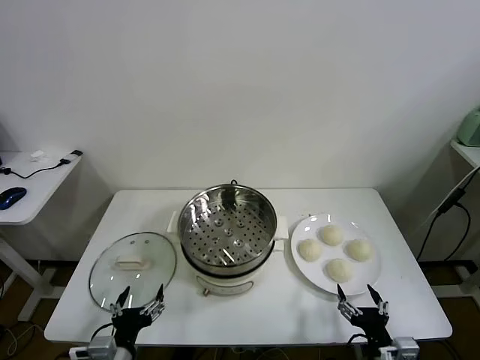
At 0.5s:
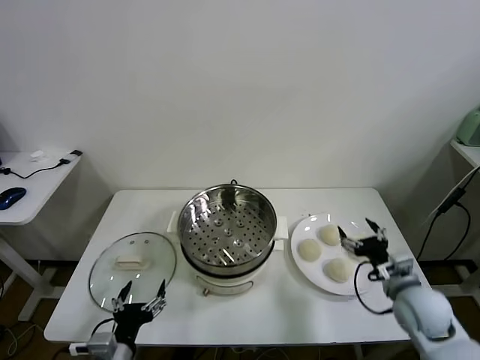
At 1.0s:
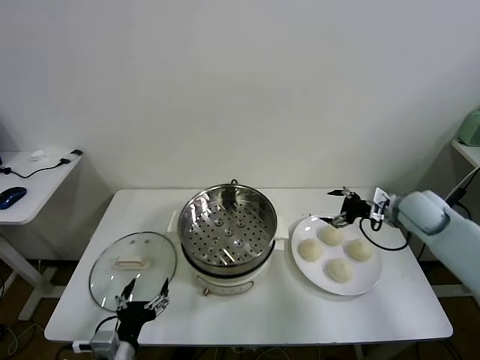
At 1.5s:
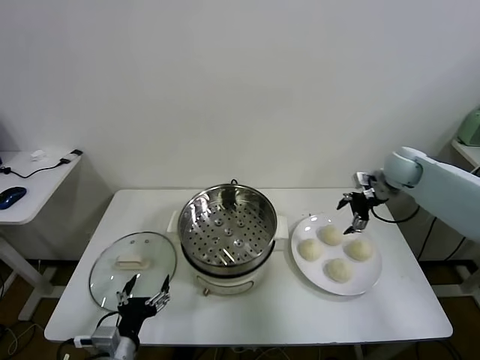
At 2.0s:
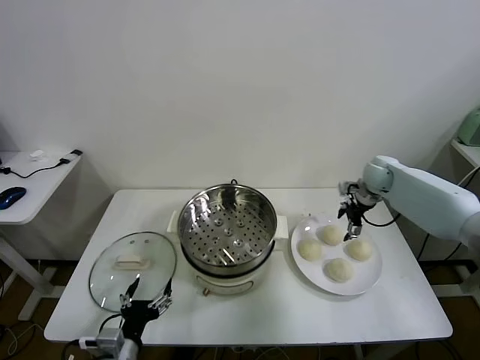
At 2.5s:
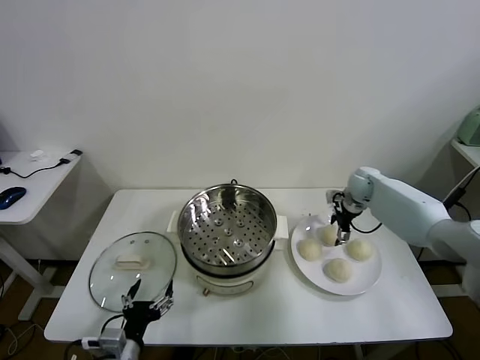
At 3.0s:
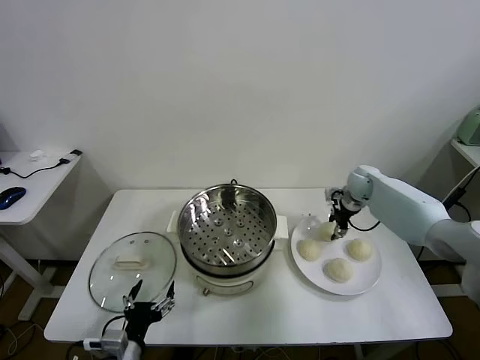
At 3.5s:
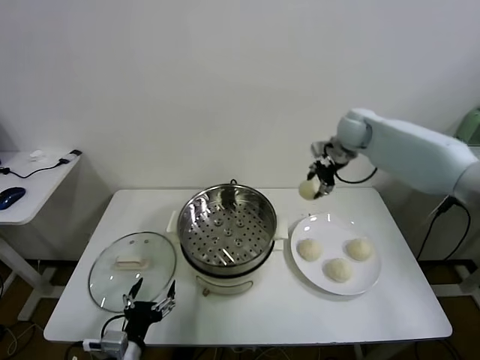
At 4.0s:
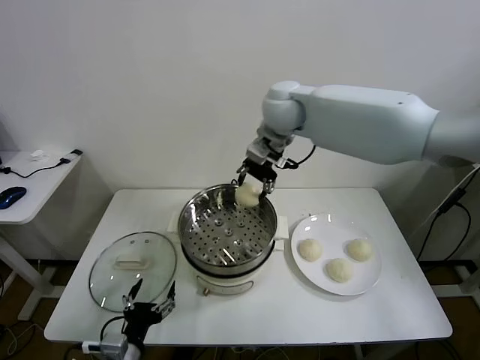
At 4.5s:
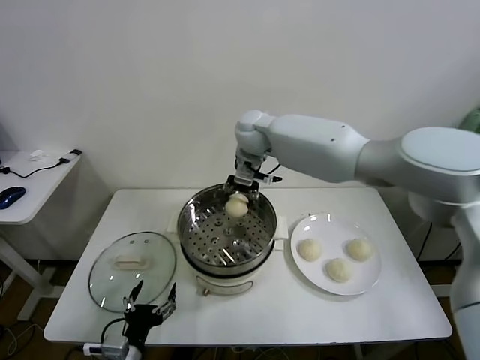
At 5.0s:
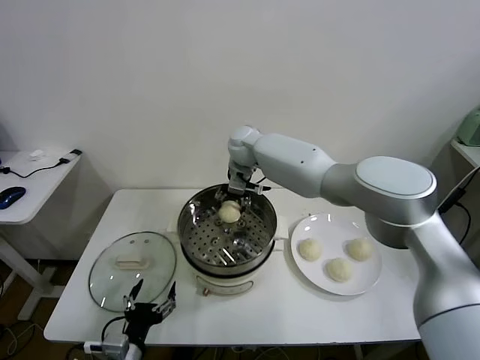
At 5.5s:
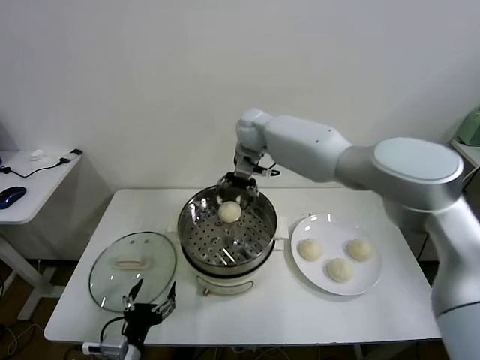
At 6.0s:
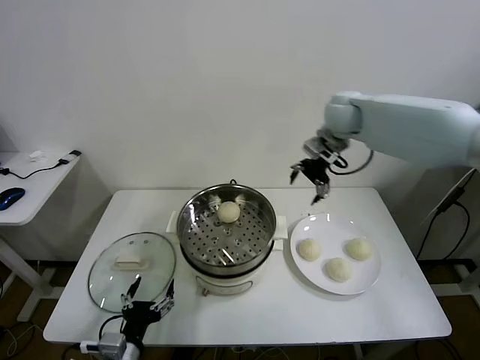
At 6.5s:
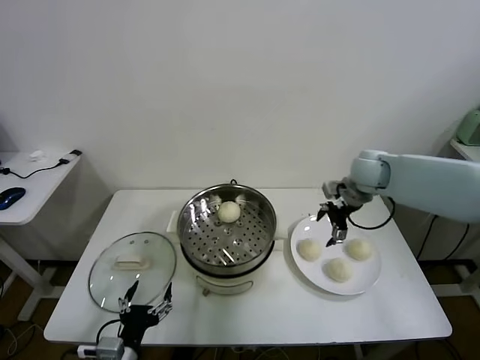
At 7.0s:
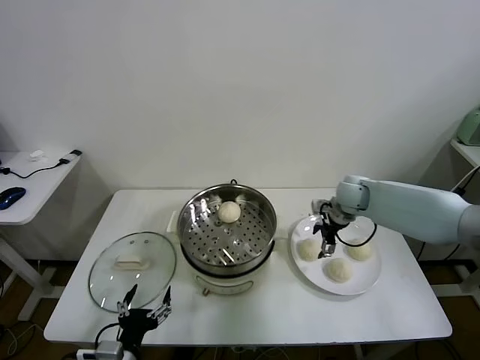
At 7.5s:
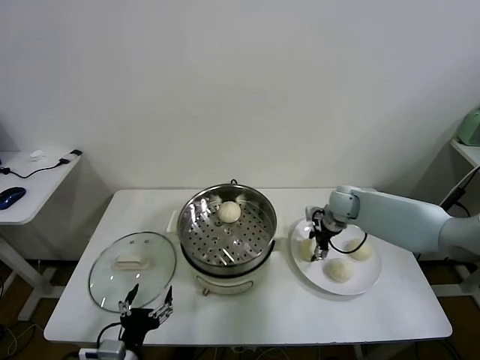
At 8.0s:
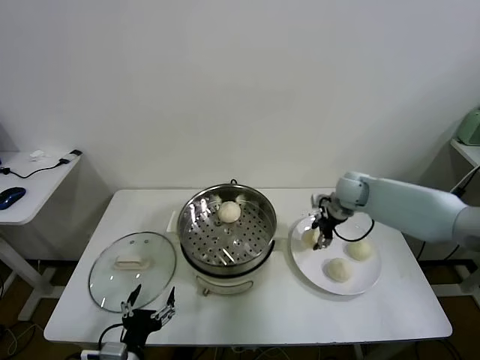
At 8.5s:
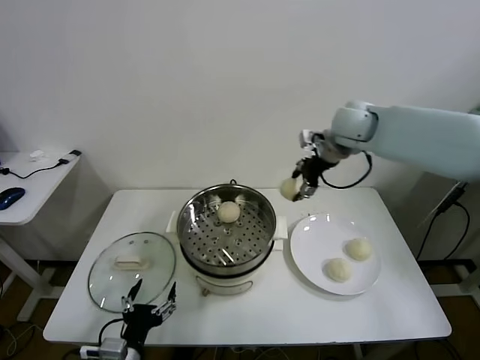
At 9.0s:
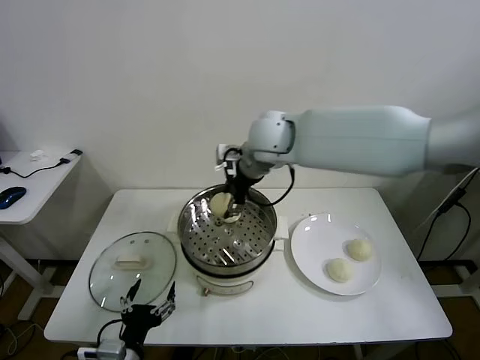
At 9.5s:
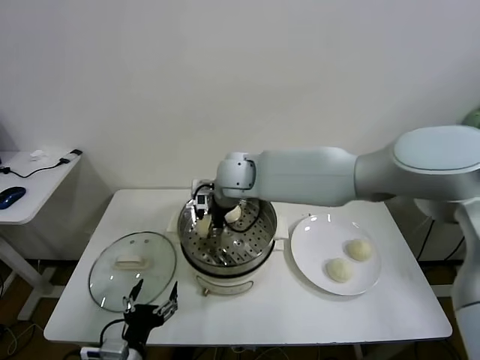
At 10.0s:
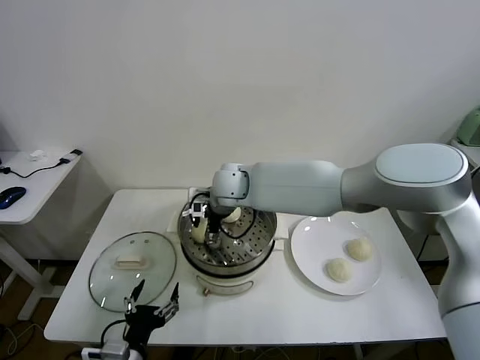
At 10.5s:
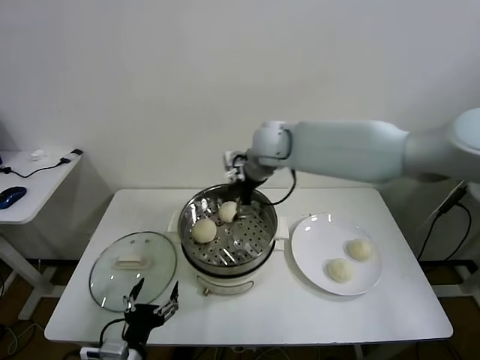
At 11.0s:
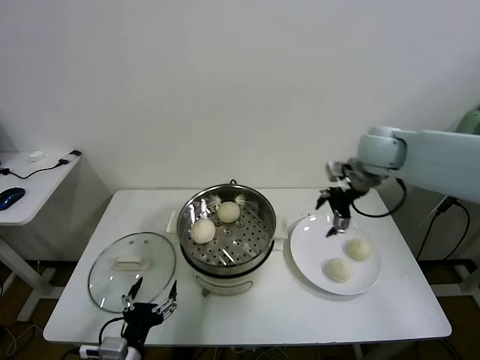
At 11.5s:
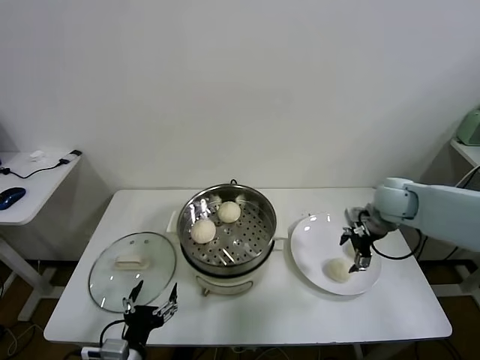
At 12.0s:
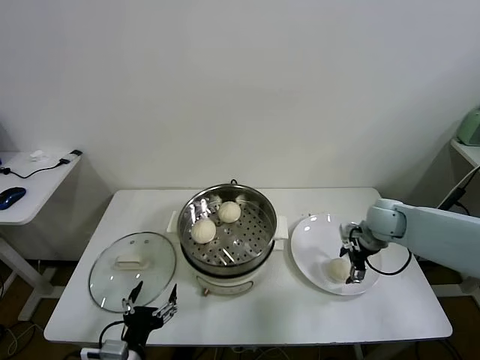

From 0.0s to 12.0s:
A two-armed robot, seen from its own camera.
Task of the whole recording: take steamed baozi put them in steamer.
Step, from 0.0s to 2.5s: Grasp the baozi in the plate with right gripper.
Step, from 3.0s to 5.0s: Place the baozi on the steamer with right gripper.
Step, from 5.5s to 7.5s: Grasp the baozi in the plate with right gripper.
Step, from 8.0s to 10.0s: Place the baozi on the steamer with right gripper.
From 2.0s to 4.0s: The right gripper moves to the left and upward, about 35 cm, and closes its fingers.
From 4.0s to 6.0s: The right gripper heads to the right, covering about 20 cm, and opens.
From 6.0s to 8.0s: The right gripper moves downward, roughly 15 cm, and closes its fingers.
From 8.0s to 10.0s: The right gripper is displaced to the left by approximately 30 cm, and opens up.
From 10.0s to 12.0s: The right gripper is displaced to the right by about 35 cm.

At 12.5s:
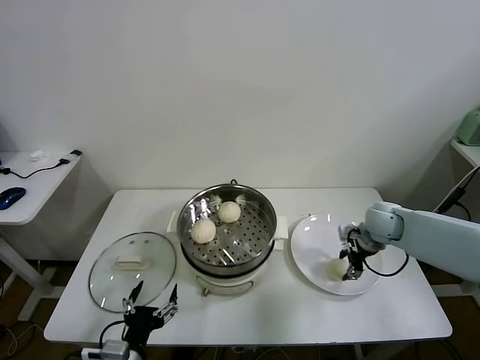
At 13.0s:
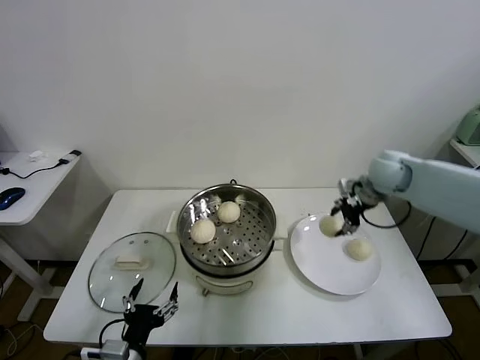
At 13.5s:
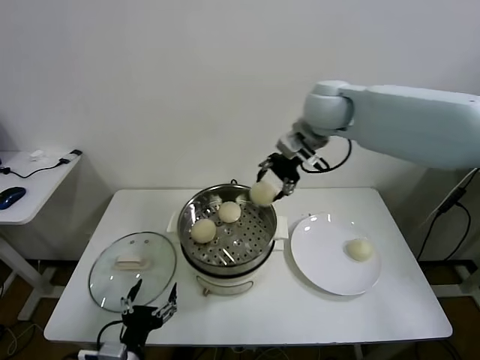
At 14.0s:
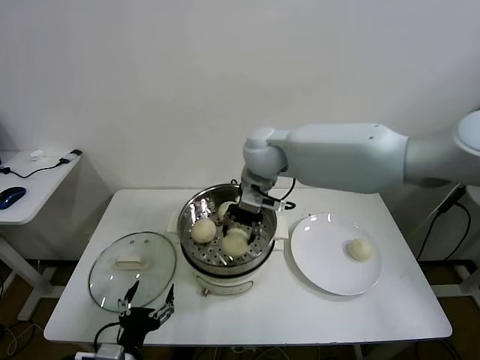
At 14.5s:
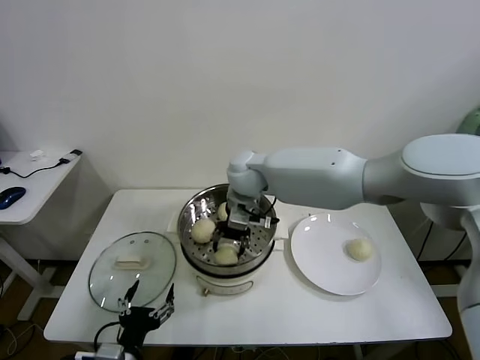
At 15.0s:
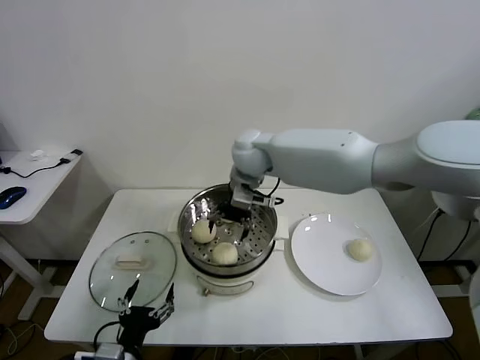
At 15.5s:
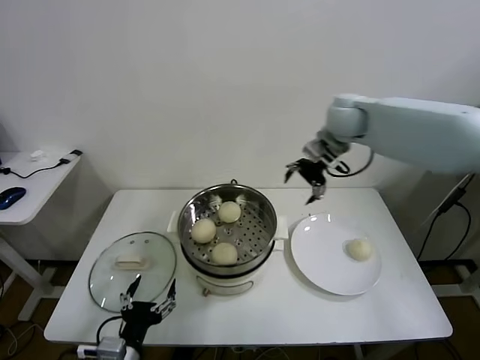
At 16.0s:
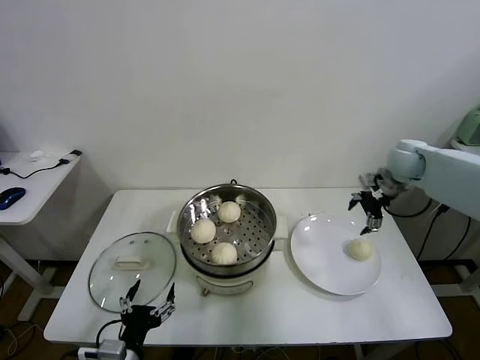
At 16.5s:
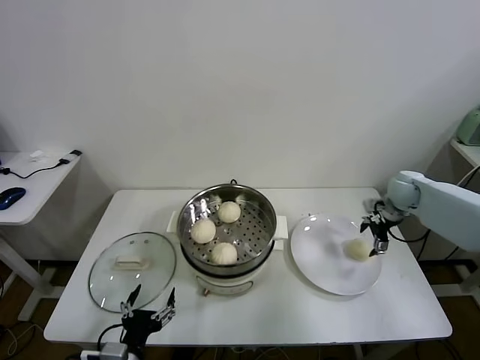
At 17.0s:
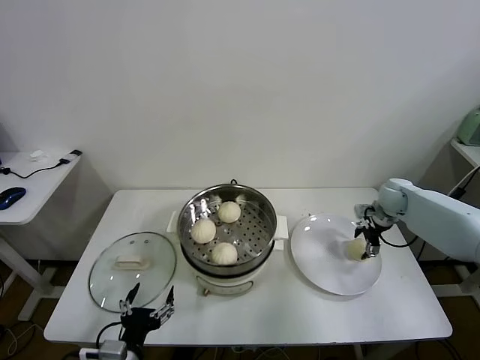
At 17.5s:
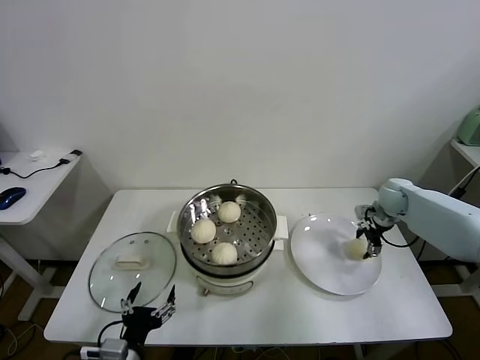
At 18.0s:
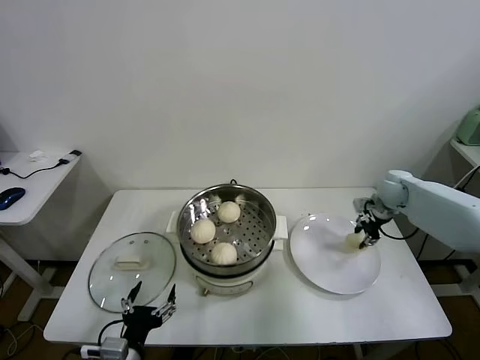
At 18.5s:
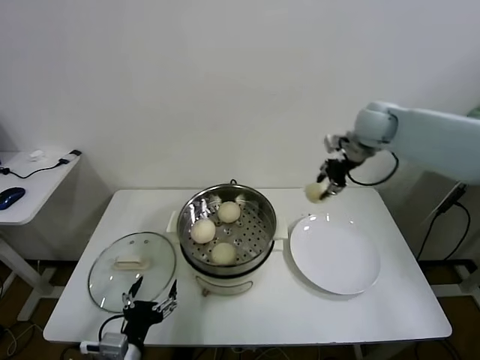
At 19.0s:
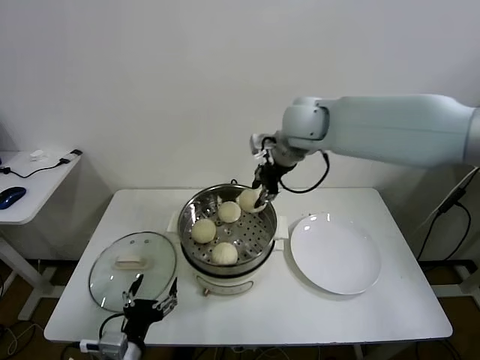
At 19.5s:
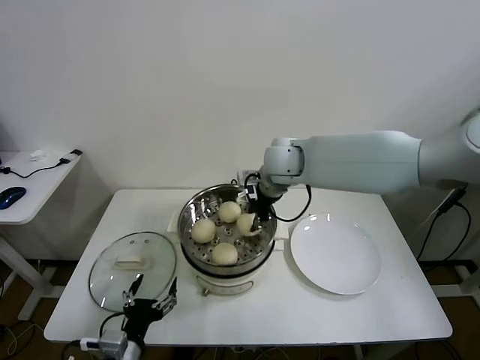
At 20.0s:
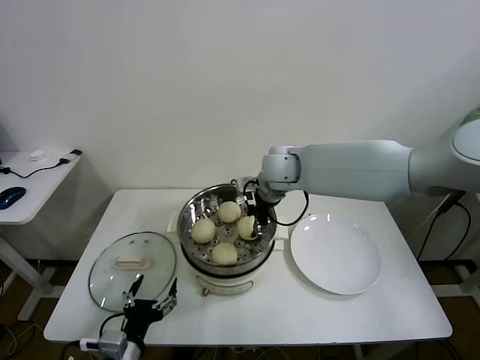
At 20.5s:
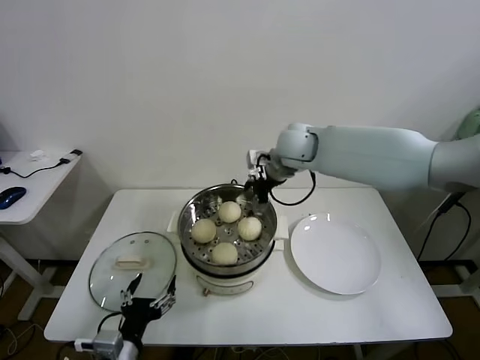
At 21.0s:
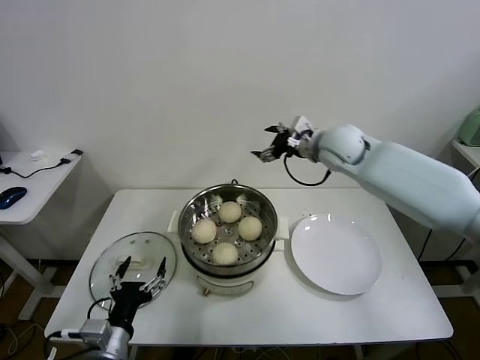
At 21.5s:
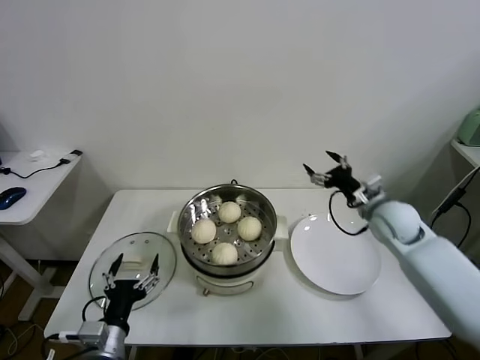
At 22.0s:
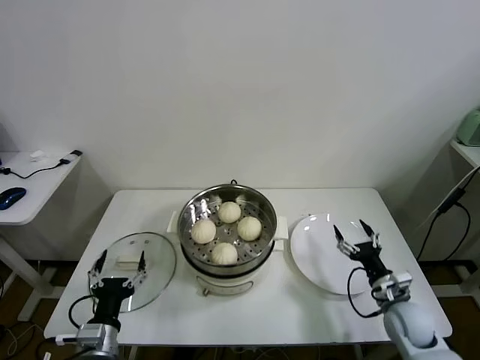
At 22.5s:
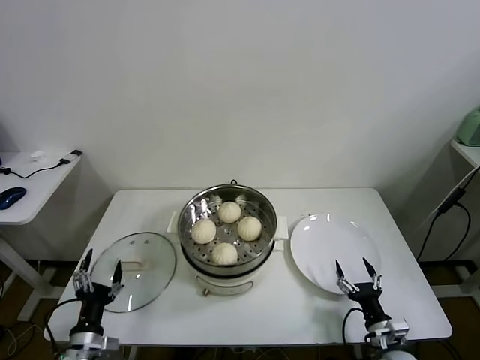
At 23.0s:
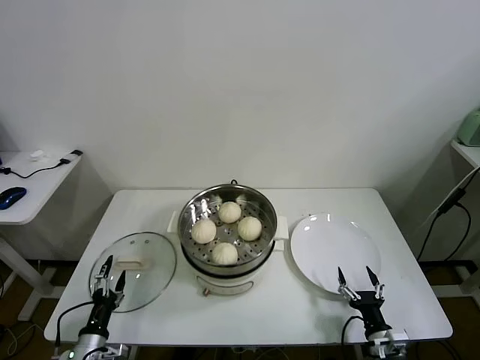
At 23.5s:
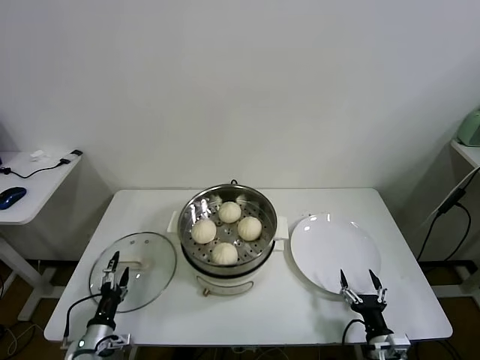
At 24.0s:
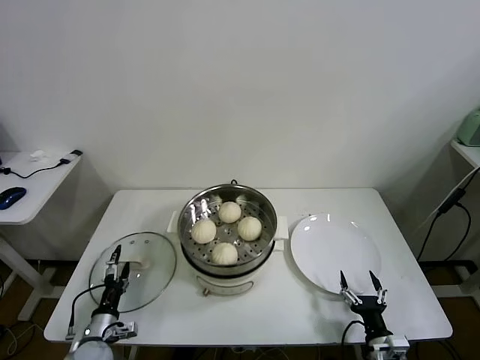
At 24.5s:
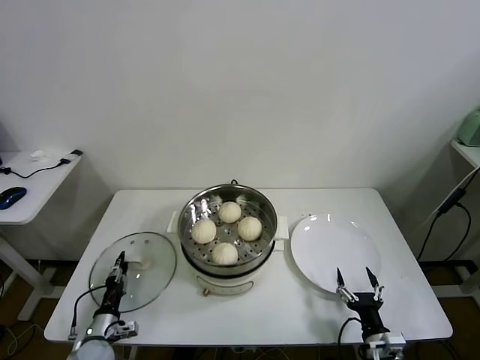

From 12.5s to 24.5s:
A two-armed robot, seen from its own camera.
Task of the whole recording: take steamed baozi put them in steamer.
Step, from 13.0s to 14.5s: Place the baozi on the steamer with right gripper.
Step, from 15.0s to 17.5s: Grasp the baozi in the plate with right gripper.
Step, from 18.0s to 20.0s: Place the baozi on the steamer with right gripper.
From 12.5s to 14.5s: The right gripper moves to the left, approximately 35 cm.
From 14.5s to 16.5s: The right gripper heads to the right, covering some 40 cm, and opens its fingers.
From 16.5s to 18.5s: The right gripper shifts roughly 25 cm upward and to the left, and closes its fingers.
From 18.5s to 20.5s: The right gripper shifts about 15 cm to the left, and opens up.
From 20.5s to 22.5s: The right gripper travels downward, backward and to the right by about 60 cm. Meanwhile the left gripper heads to the left and downward, covering about 10 cm.
From 22.5s to 24.5s: The left gripper is displaced downward and forward by roughly 10 cm, and closes up.

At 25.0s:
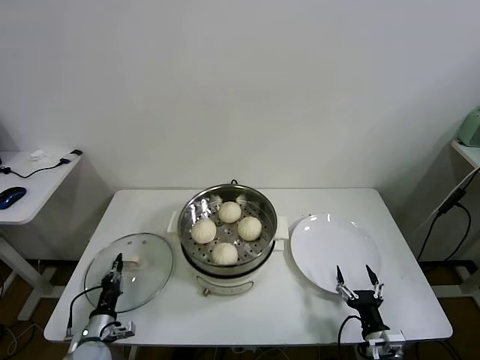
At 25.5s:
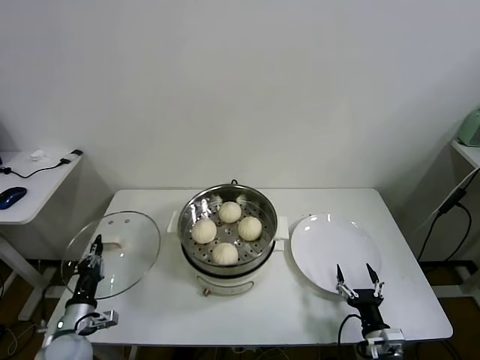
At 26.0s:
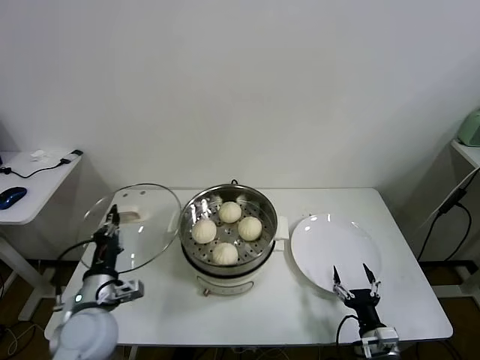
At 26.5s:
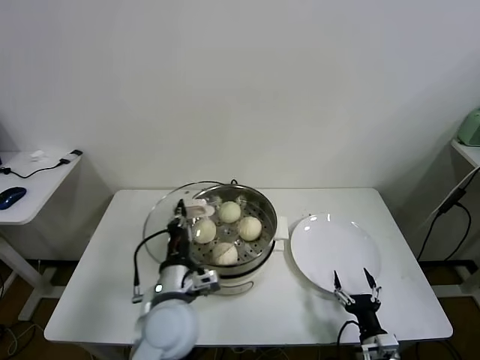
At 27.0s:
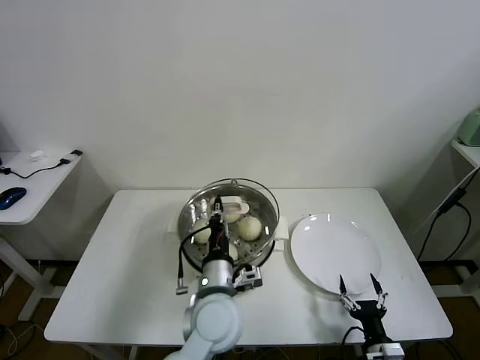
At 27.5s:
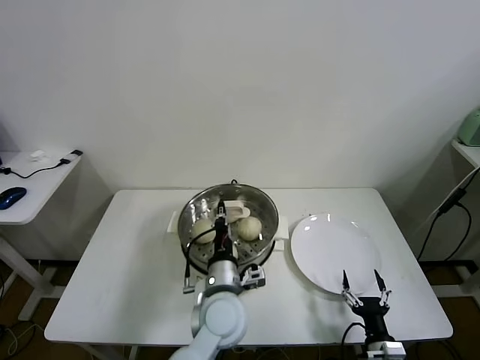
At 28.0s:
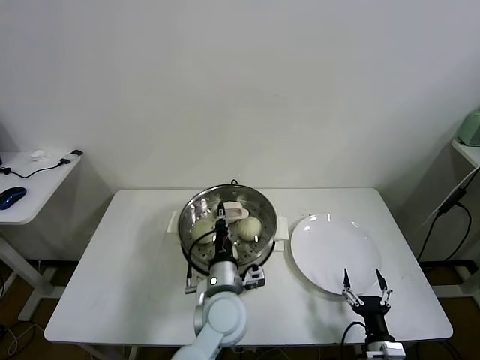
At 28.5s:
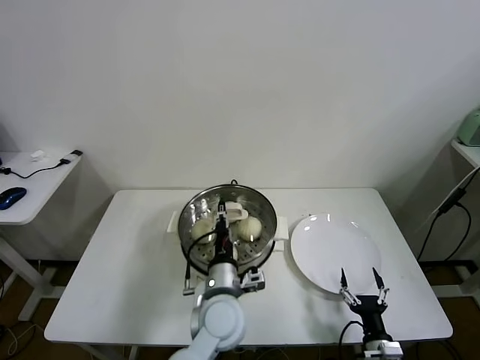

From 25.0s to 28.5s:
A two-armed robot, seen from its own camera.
Task of the whole recording: take steamed baozi put them in steamer.
Step, from 25.0s to 28.5s: Place the pot lid on the steamer with left gripper.
From 25.0s to 27.0s: The left gripper shifts some 40 cm to the right and upward.
From 27.0s to 28.5s: The grippers stay close to where they were, moving slightly.
